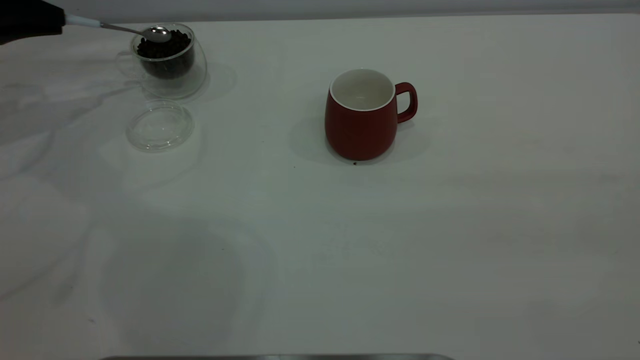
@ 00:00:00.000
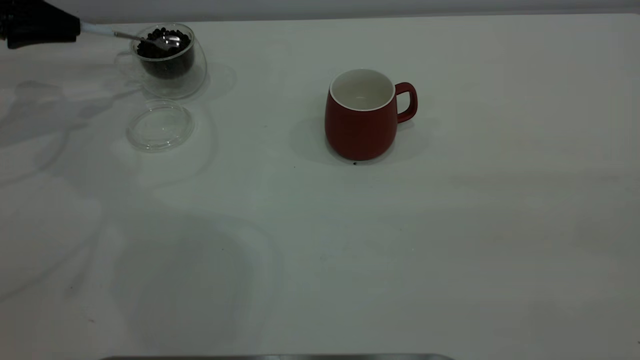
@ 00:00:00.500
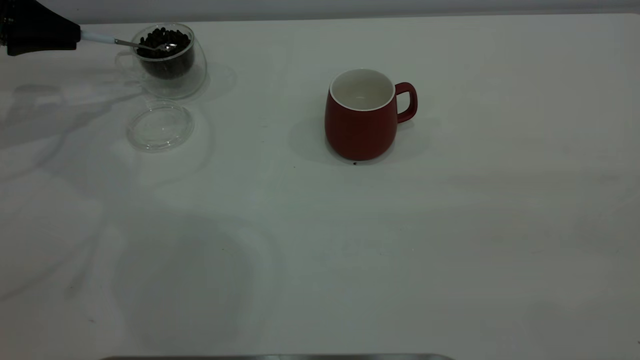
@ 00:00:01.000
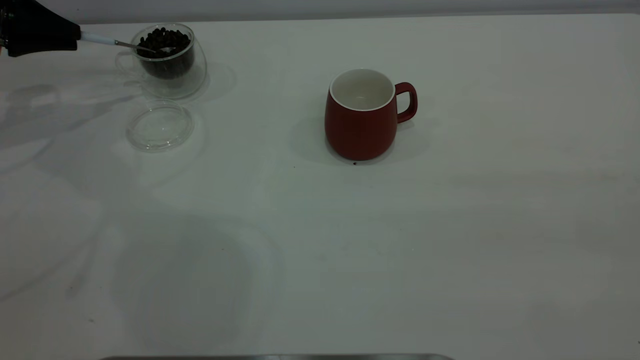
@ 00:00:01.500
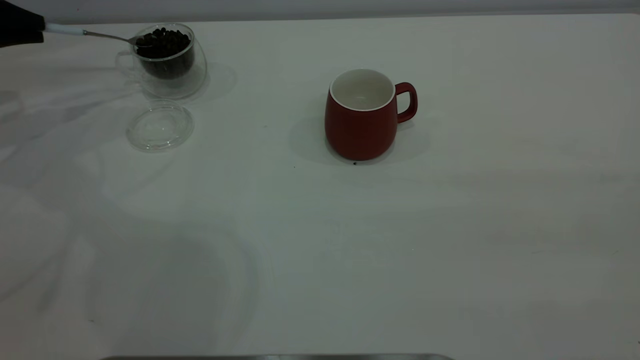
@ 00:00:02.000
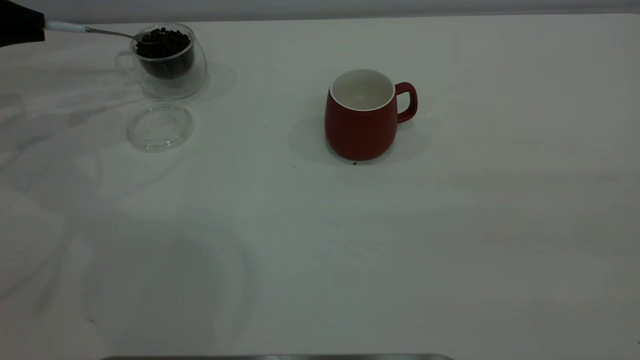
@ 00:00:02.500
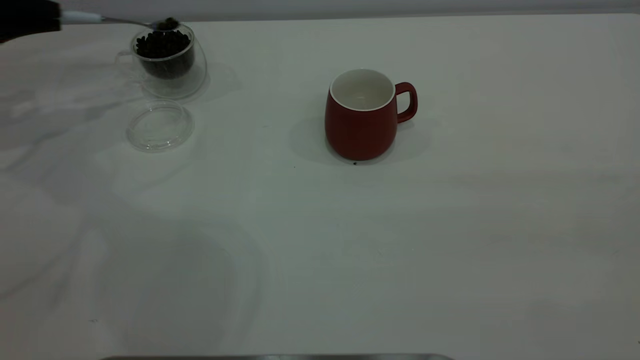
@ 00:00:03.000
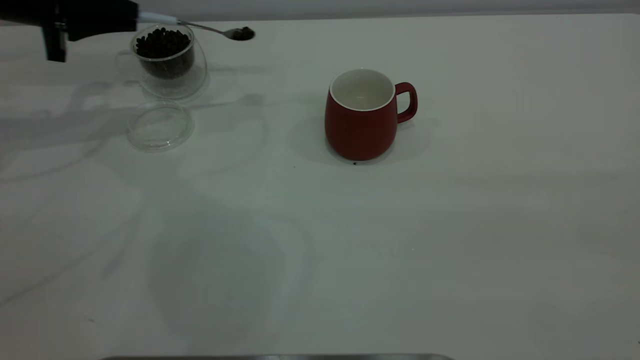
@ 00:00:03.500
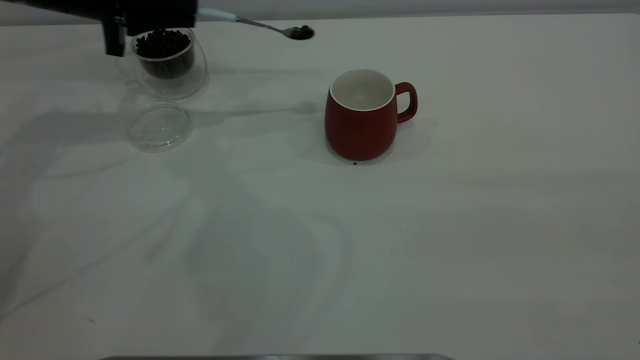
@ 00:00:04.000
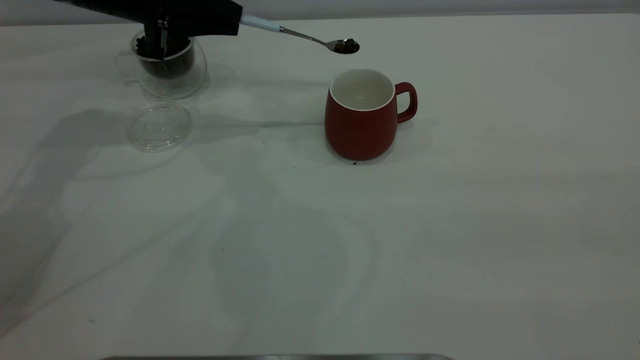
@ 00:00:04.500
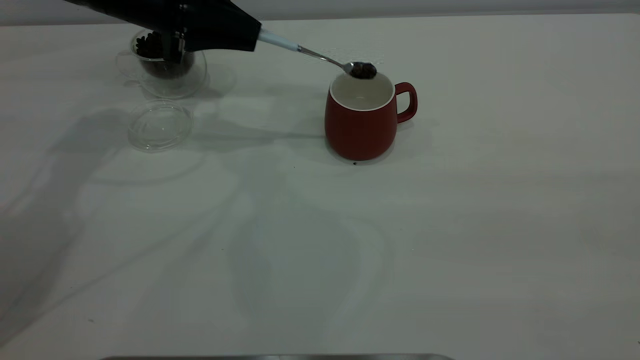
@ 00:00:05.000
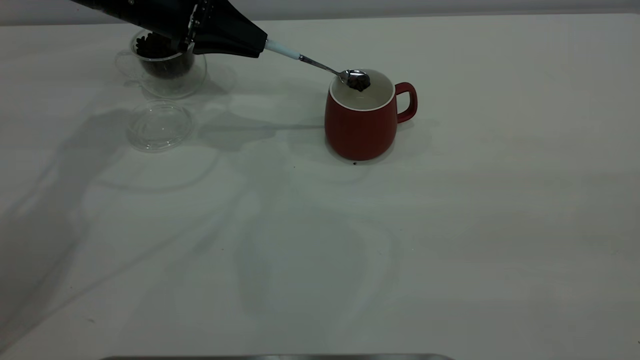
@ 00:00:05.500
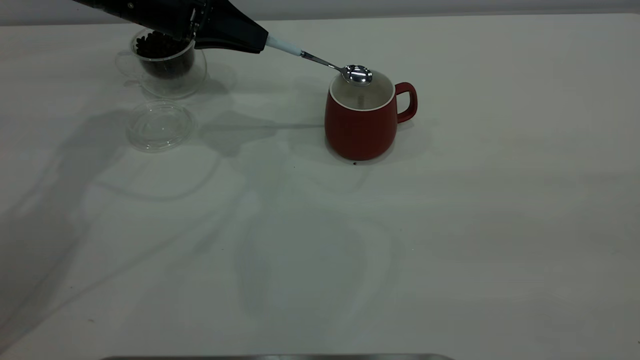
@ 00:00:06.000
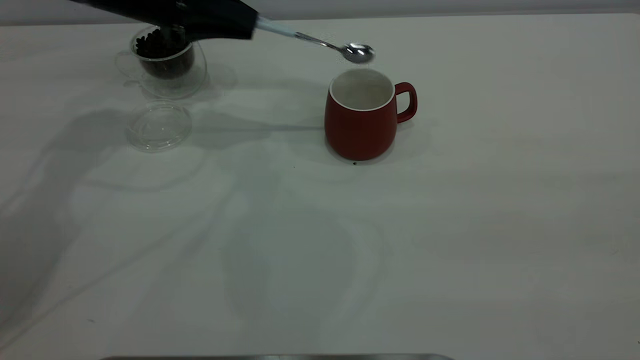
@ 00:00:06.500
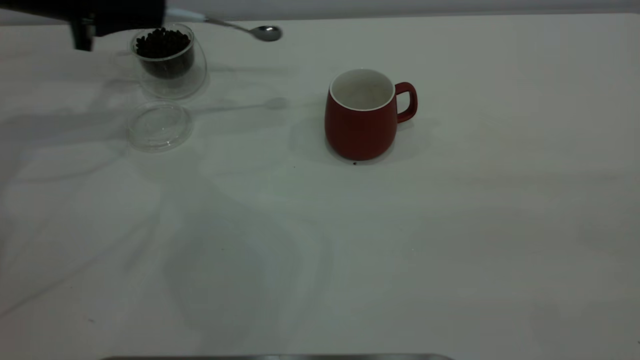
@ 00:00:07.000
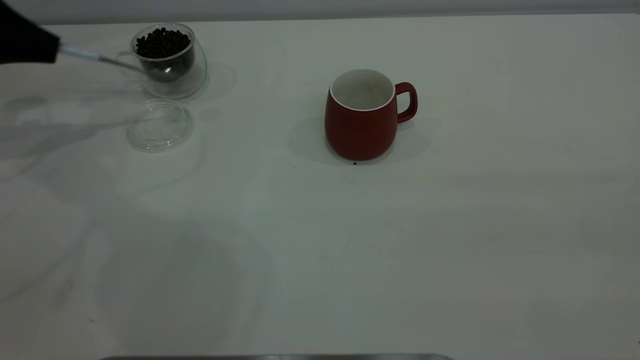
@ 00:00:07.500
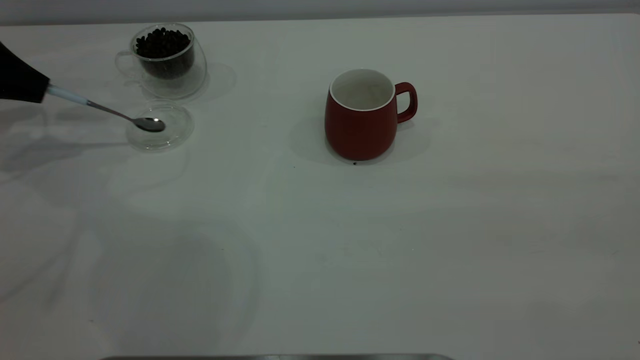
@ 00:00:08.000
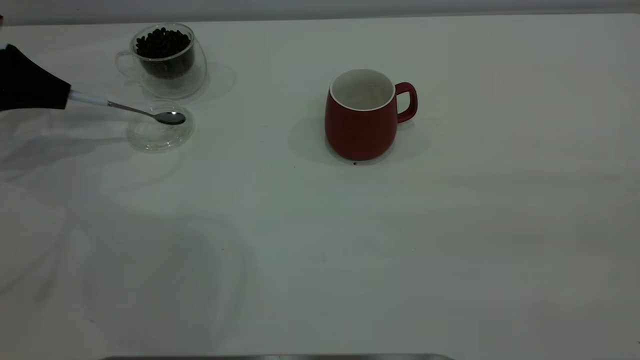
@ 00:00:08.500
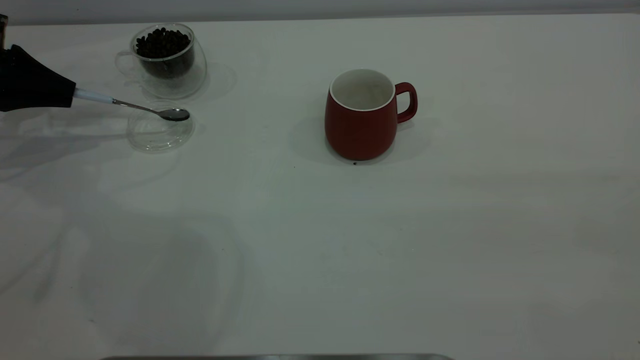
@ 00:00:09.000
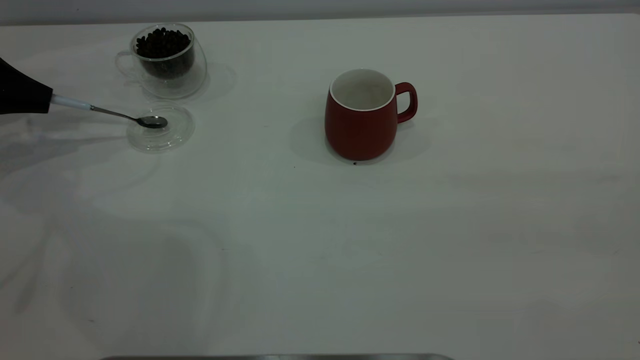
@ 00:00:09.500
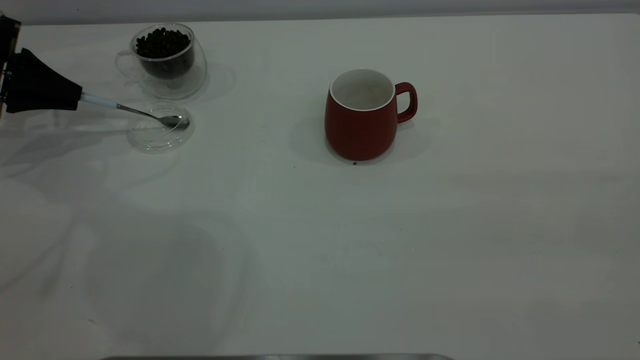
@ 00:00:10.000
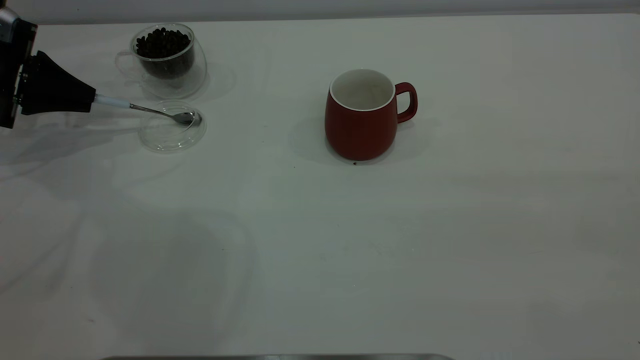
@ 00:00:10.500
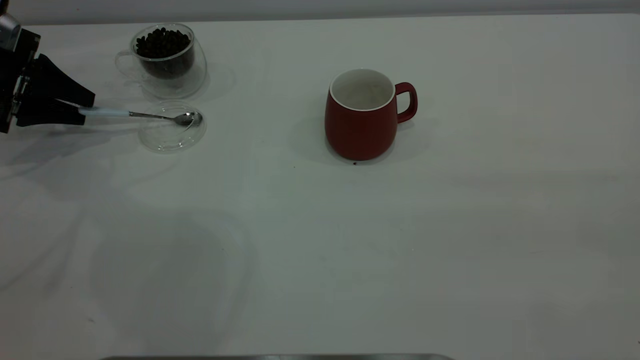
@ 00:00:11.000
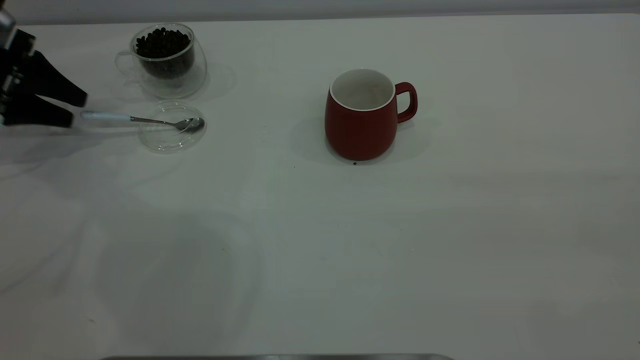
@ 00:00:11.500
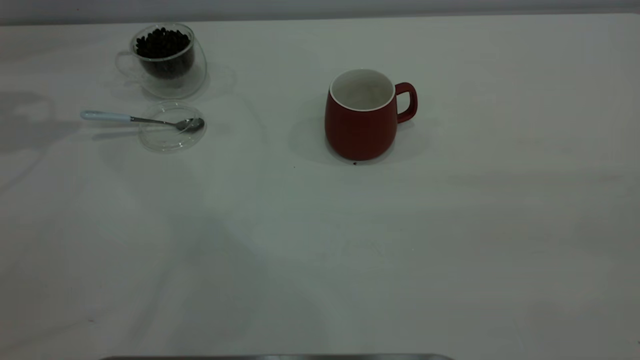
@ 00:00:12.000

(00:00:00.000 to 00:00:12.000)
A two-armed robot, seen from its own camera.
Task of the whole recording: the right gripper place the red cup in the center of the table, the left gripper take the blue spoon from the cup lid and scoop out the coffee beans from the coffee cup and put them into the red cup, the left gripper put the spoon back into the cup lid.
Step, 00:00:00.000 - 00:00:06.500: Scoop a spoonful of beans into the cup.
Step, 00:00:07.000 - 00:00:11.500: Place the spoon back in its original place.
00:00:02.000 - 00:00:04.000: The left gripper travels to the right by about 20 cm.
00:00:04.000 - 00:00:06.000: The left gripper goes roughly 5 cm to the right.
00:00:06.000 - 00:00:08.000: The left gripper shifts approximately 25 cm to the left.
00:00:08.000 - 00:00:10.000: The grippers move only a little.
00:00:10.000 - 00:00:12.000: The left gripper shifts some 20 cm upward, and opens its fingers.
